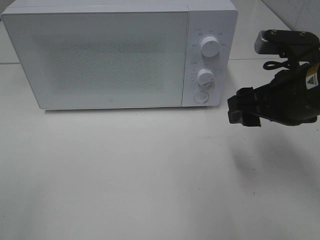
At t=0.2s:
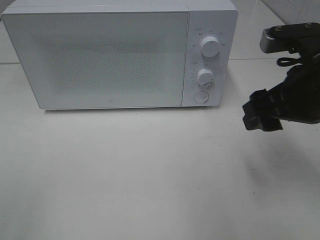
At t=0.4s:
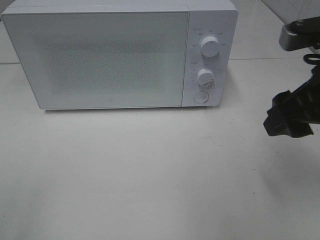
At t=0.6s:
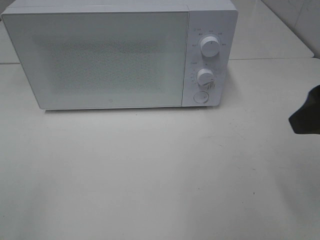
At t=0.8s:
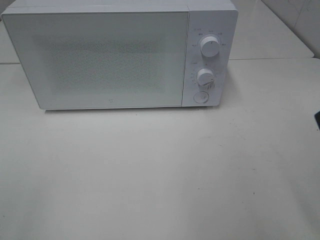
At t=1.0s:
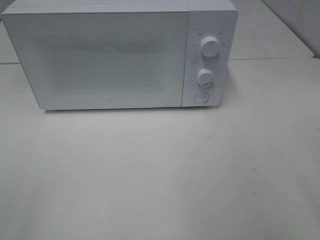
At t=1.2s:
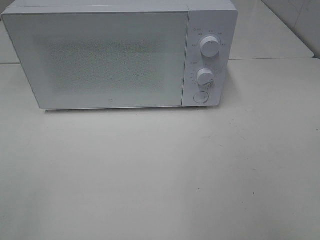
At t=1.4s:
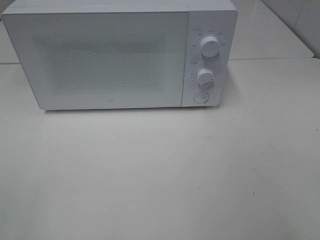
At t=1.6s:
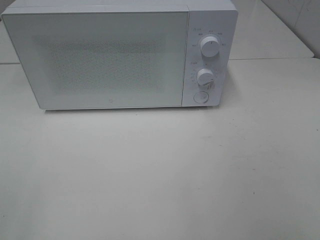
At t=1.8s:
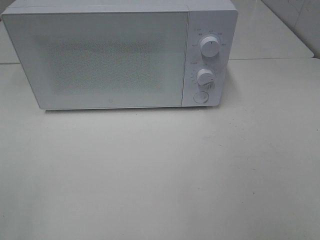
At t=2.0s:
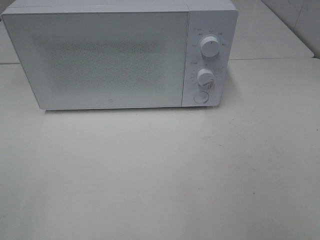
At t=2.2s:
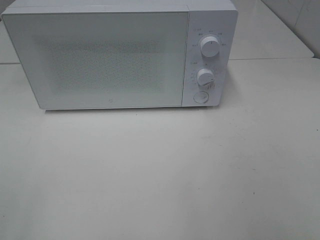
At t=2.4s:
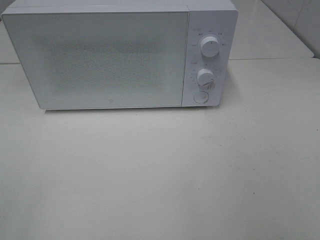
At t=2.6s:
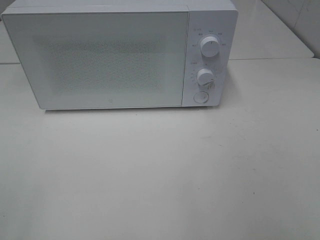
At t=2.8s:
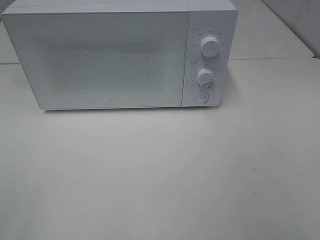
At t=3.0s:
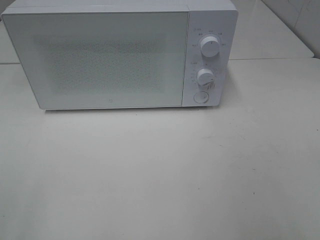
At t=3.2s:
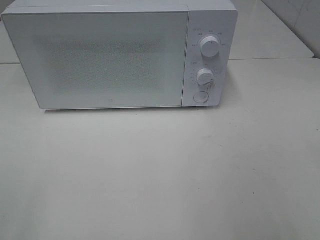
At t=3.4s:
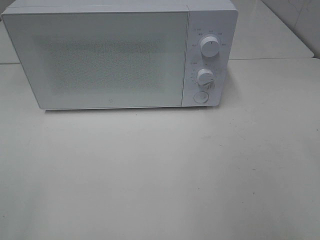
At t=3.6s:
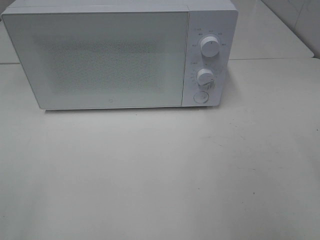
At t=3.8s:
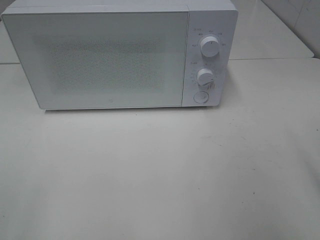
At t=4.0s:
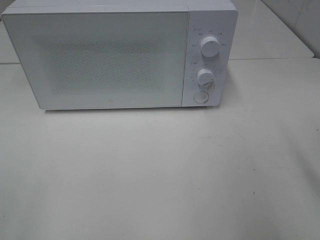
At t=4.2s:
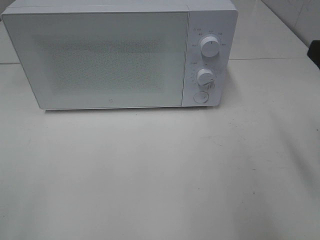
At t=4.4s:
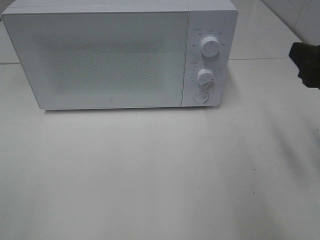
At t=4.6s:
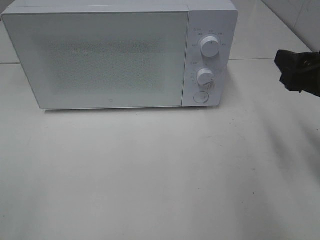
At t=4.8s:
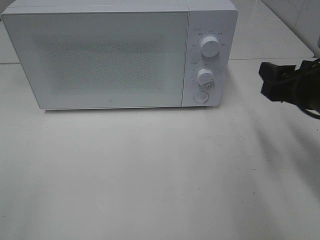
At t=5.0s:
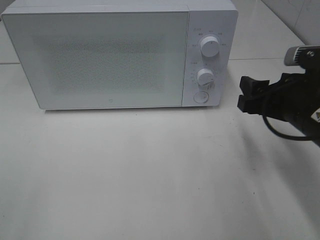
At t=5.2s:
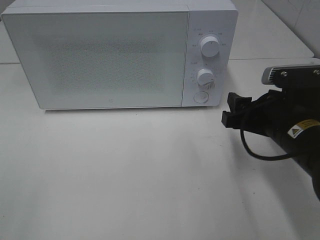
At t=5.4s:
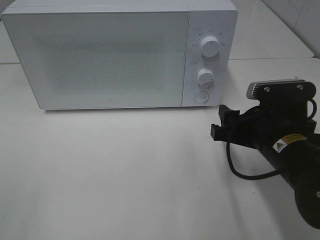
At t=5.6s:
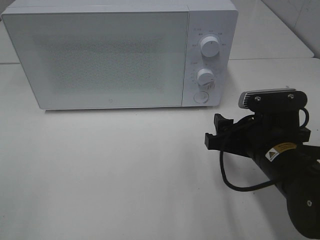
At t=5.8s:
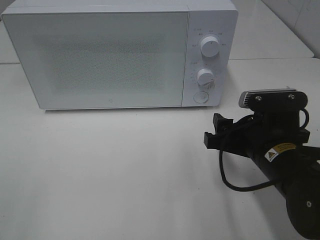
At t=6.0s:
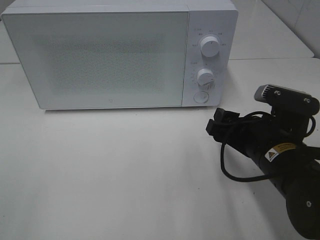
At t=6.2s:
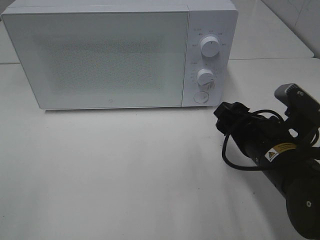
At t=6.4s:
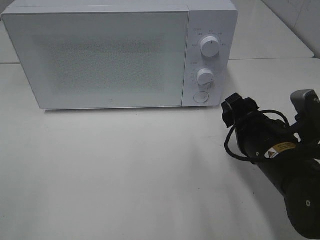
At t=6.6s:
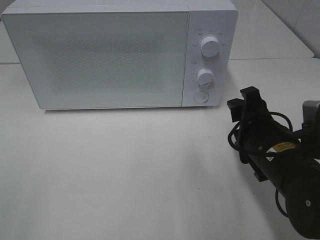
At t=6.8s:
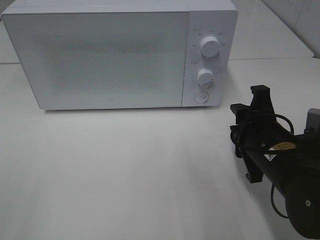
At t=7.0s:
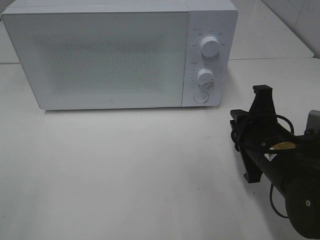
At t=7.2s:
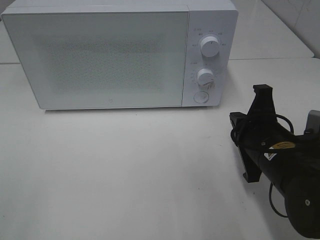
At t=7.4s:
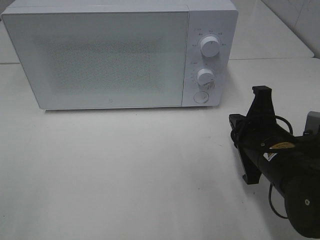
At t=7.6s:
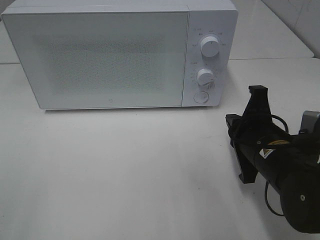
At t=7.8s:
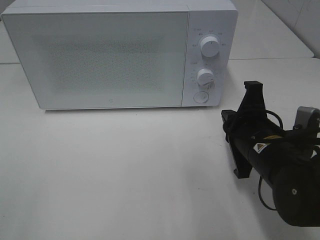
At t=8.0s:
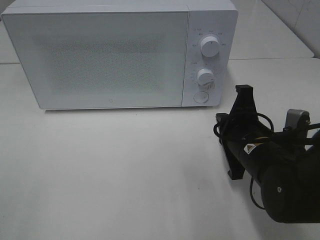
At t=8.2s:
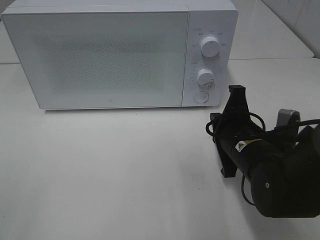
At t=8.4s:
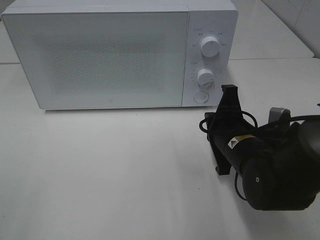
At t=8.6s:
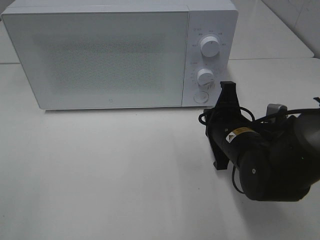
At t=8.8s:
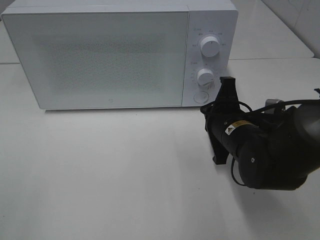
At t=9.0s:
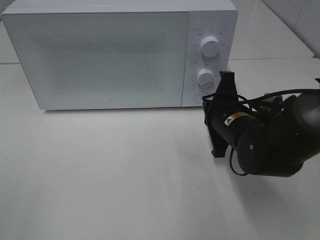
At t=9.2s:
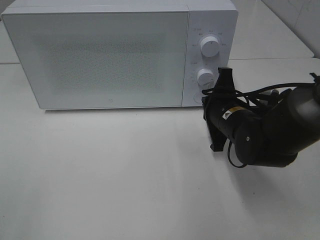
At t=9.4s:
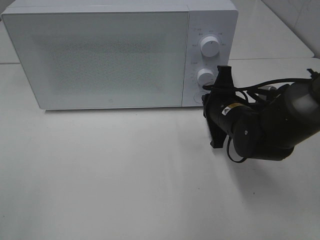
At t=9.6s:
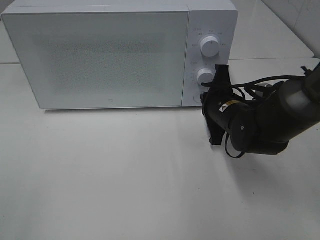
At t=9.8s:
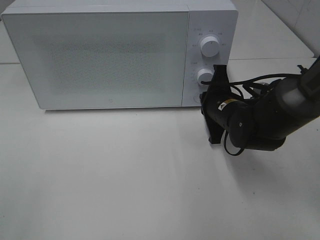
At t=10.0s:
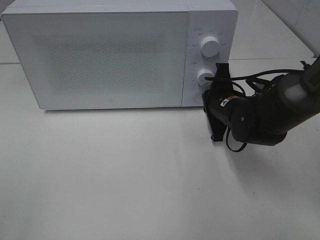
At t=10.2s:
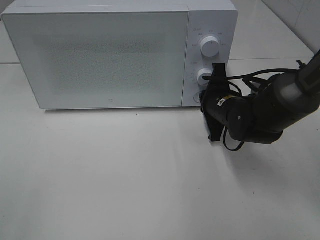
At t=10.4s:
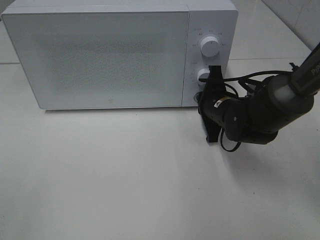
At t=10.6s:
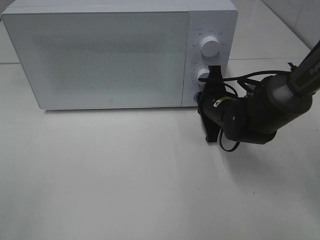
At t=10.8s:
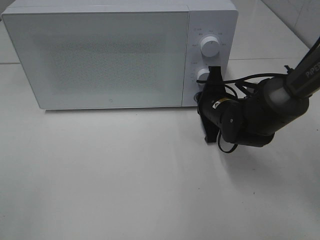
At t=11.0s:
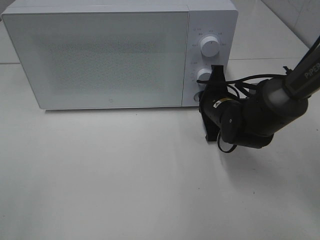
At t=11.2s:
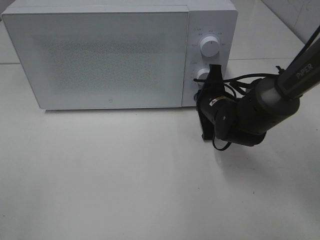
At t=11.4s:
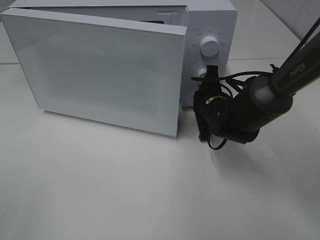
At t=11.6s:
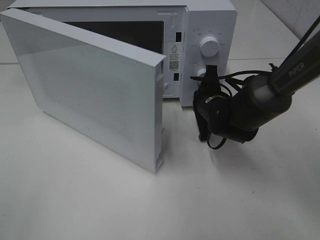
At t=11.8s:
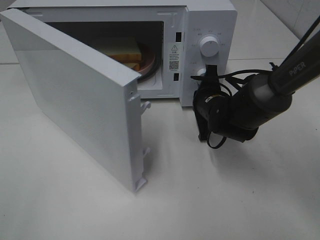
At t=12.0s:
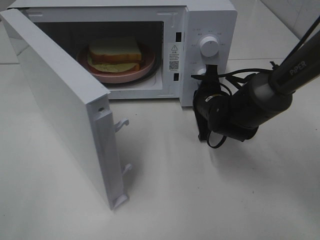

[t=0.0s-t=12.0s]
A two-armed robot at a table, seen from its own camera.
Task of the whole recording: Heat Sandwich.
t=0.0s to t=1.6s: The right gripper heads backward and to the right, covering roughly 25 cm.
t=3.0s to t=4.4s: The right gripper heads forward, covering roughly 20 cm.
t=4.4s to t=6.0s: The right gripper goes about 15 cm downward and to the left.
t=6.0s to t=7.6s: The right gripper closes.
t=7.6s to t=9.0s: The right gripper goes some 5 cm forward.
t=9.0s to t=10.4s: The right gripper travels forward by about 5 cm.

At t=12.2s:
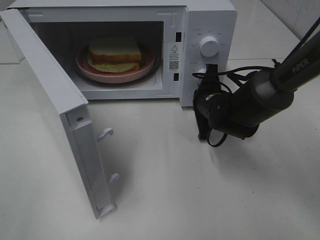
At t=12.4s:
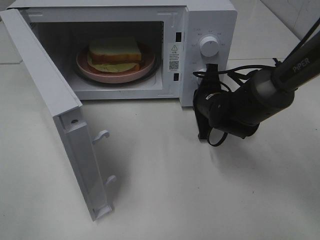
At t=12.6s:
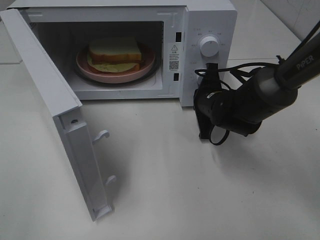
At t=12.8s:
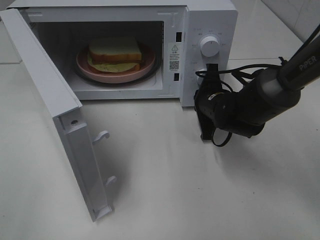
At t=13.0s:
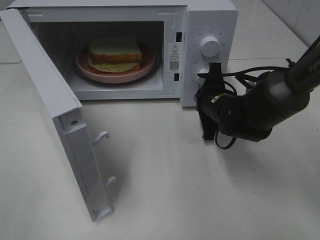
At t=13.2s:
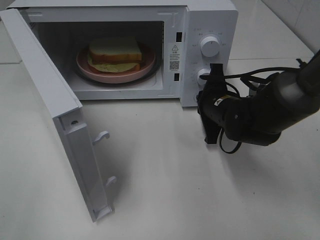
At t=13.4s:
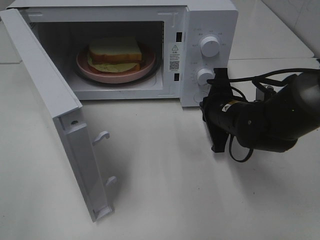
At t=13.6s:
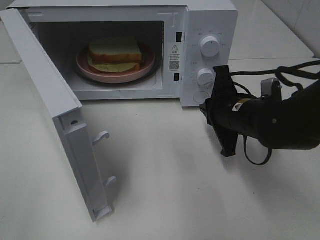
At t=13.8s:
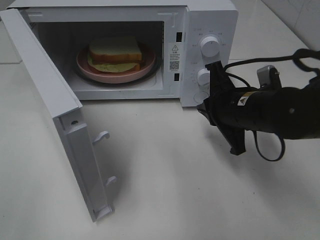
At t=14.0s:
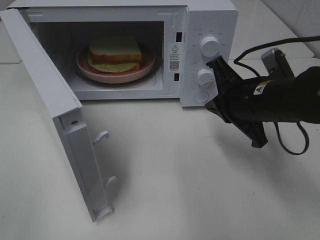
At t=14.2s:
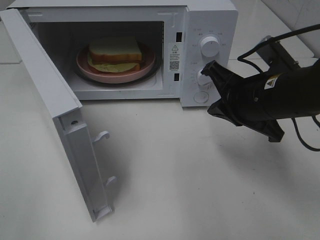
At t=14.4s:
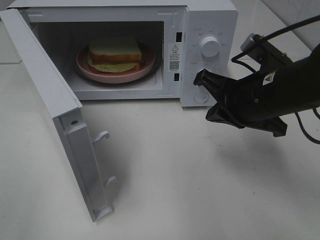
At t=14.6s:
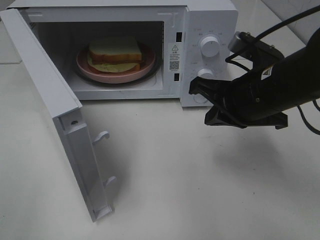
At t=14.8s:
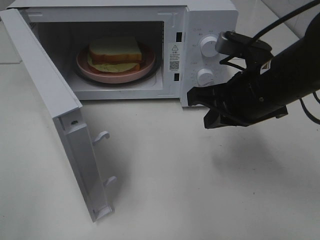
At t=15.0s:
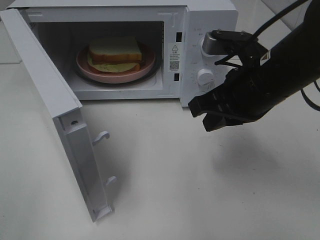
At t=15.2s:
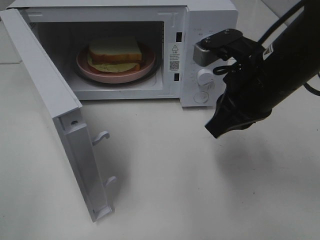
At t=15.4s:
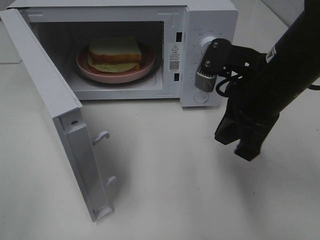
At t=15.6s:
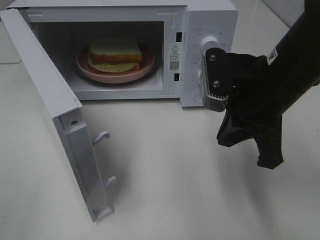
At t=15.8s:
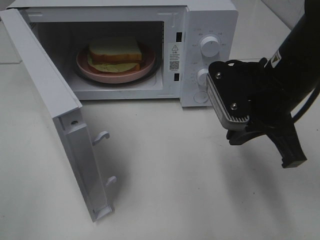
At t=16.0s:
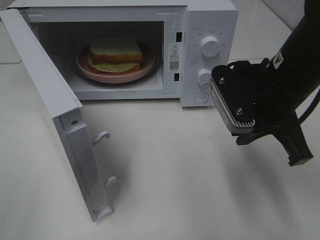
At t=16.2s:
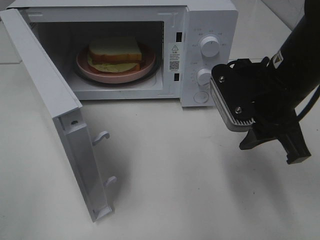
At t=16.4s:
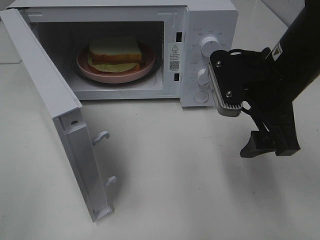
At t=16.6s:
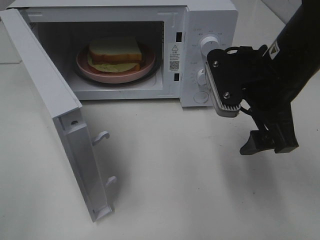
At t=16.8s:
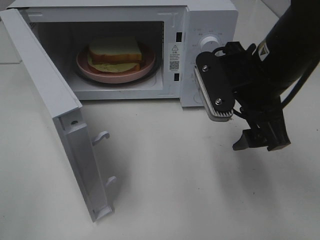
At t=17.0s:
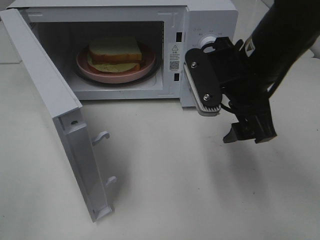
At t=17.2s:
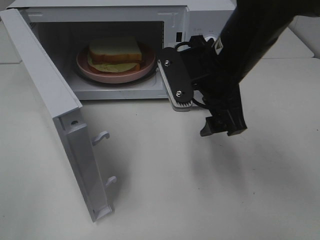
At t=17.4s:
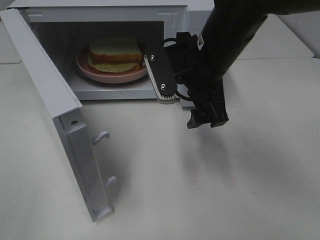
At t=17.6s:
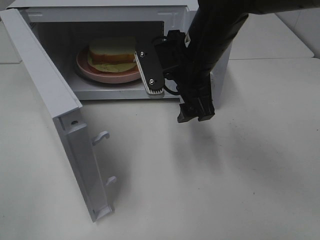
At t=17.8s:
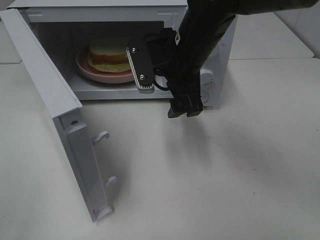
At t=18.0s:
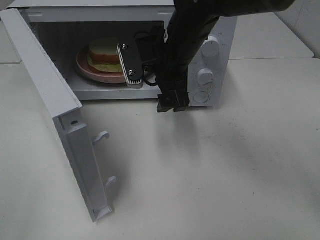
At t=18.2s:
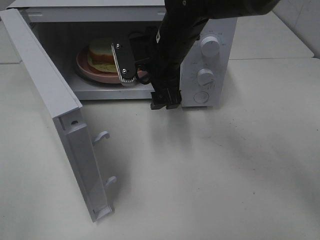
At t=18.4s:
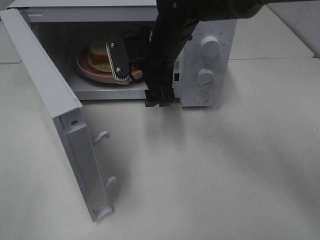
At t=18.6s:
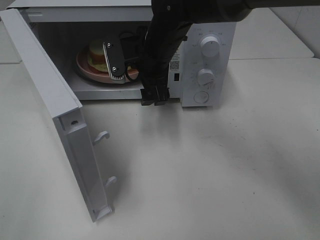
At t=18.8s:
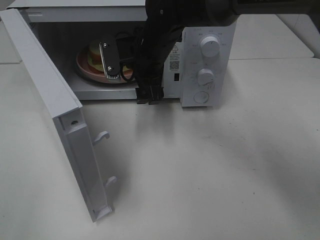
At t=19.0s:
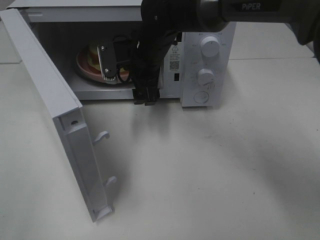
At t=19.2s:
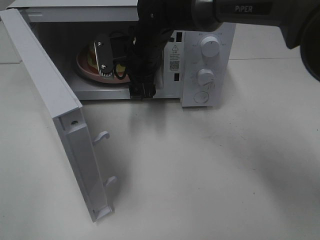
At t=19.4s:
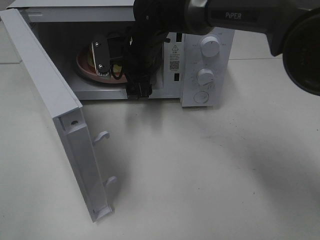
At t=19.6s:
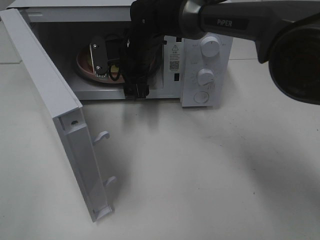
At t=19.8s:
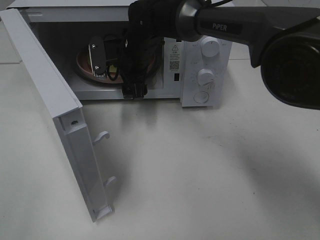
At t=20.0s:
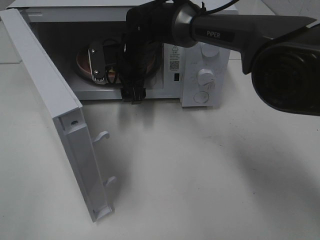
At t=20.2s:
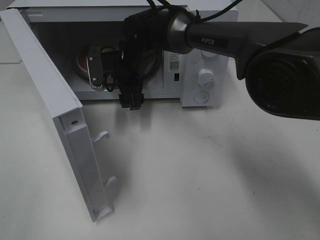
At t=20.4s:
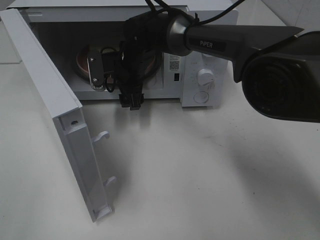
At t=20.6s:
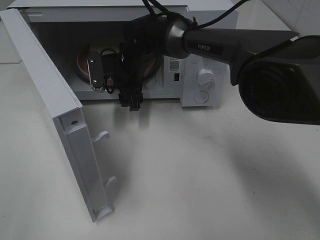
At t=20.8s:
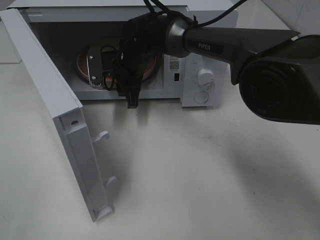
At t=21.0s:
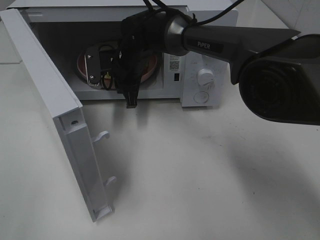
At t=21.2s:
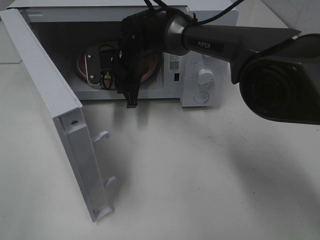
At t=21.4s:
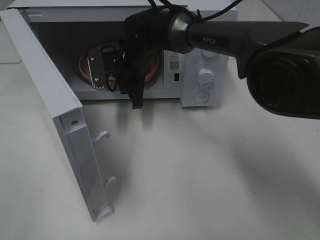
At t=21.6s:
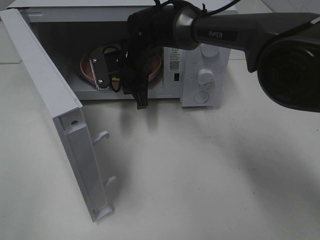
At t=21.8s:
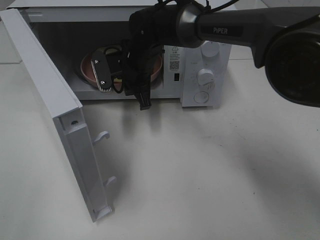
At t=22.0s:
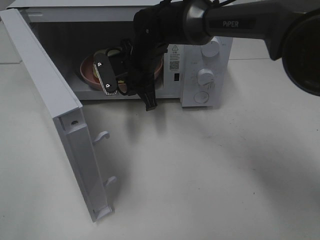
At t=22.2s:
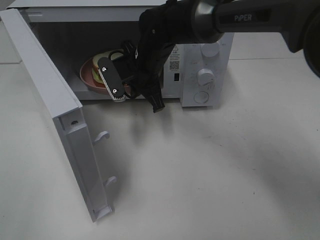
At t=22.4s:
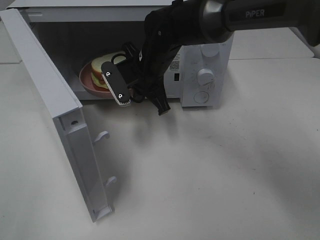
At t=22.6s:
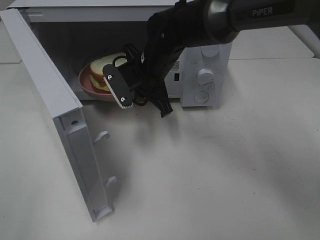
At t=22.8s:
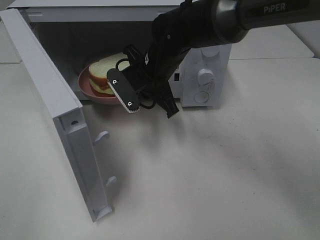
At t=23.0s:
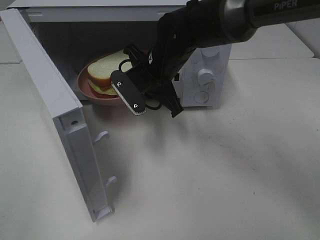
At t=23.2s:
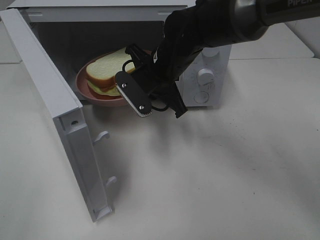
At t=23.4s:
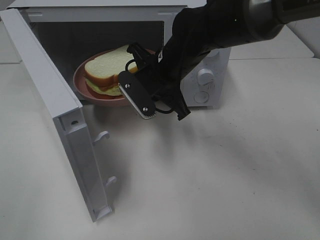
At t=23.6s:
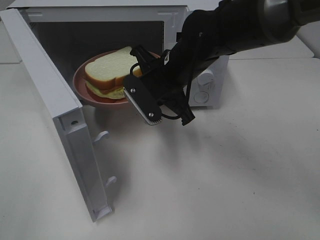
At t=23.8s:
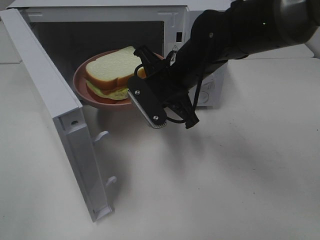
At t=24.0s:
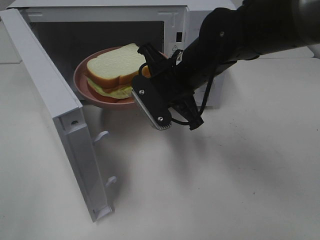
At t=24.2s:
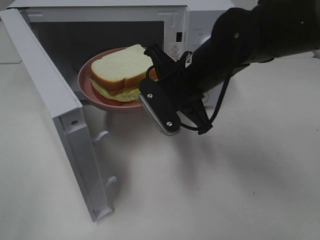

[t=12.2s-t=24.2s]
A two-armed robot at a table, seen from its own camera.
Task of the whole recording: Heat Sandwich.
Step, t=13.2s to t=21.2s: Right hand: grab the plate with the sandwich.
t=12.2s to t=13.8s: The right gripper travels backward and upward by about 10 cm.
t=13.8s to t=15.2s: The right gripper heads upward, covering approximately 10 cm.
t=15.2s to t=16.6s: The right gripper opens its fingers.
t=16.6s to t=18.2s: The right gripper moves to the left and forward, roughly 15 cm.
t=18.2s to t=19.8s: The right gripper is displaced forward and to the left by roughly 10 cm.
t=19.8s to t=21.2s: The right gripper closes.
t=21.2s to t=22.6s: The right gripper goes some 5 cm backward.
t=22.6s to t=24.2s: The right gripper travels backward and to the right by roughly 10 cm.
